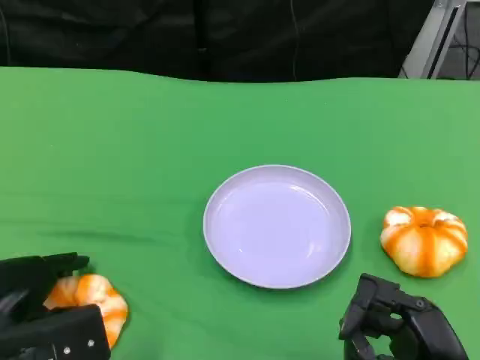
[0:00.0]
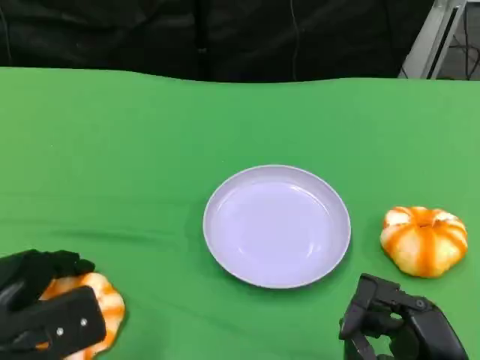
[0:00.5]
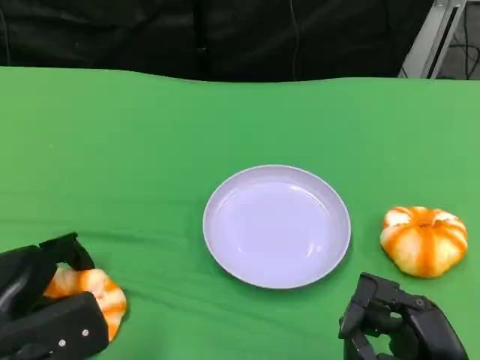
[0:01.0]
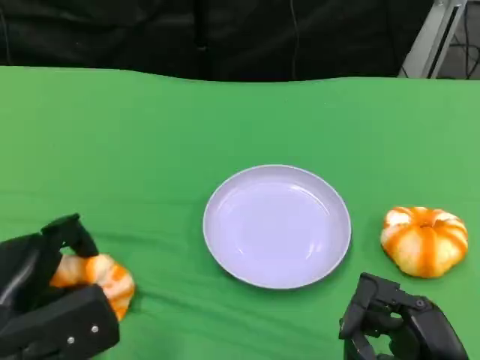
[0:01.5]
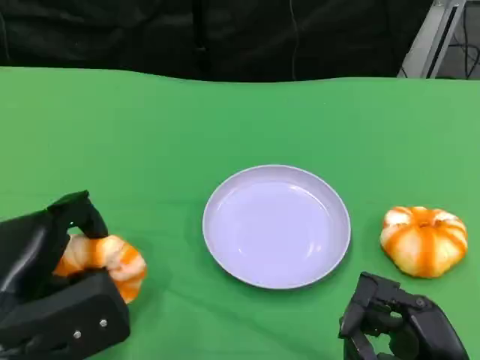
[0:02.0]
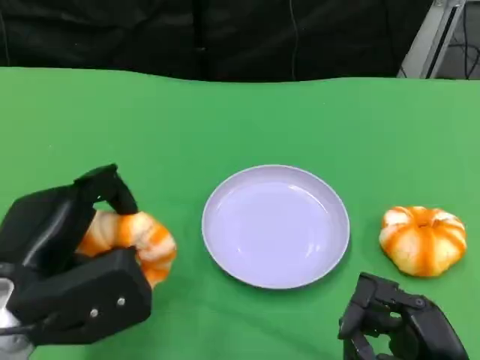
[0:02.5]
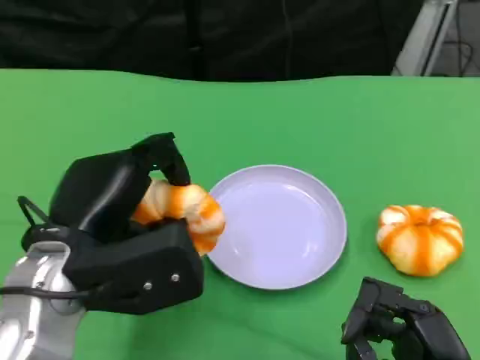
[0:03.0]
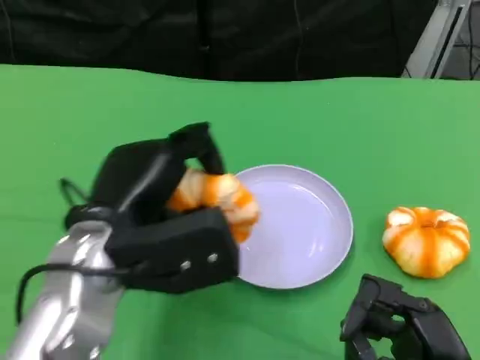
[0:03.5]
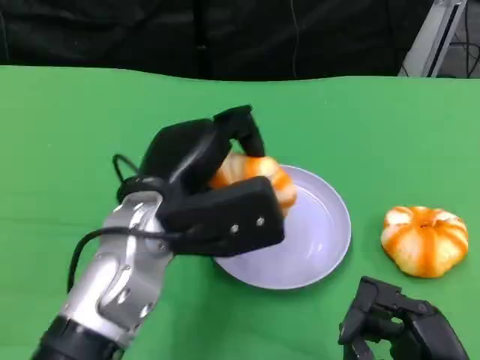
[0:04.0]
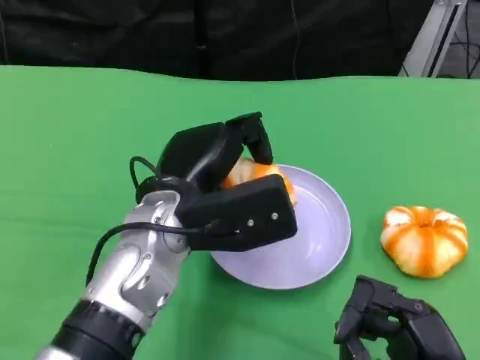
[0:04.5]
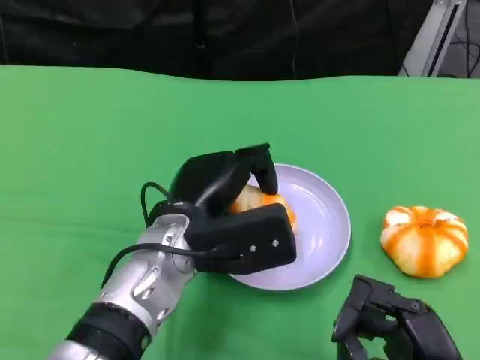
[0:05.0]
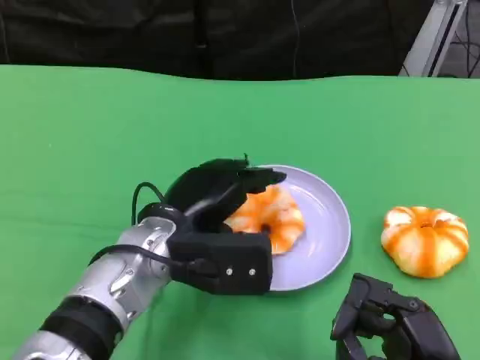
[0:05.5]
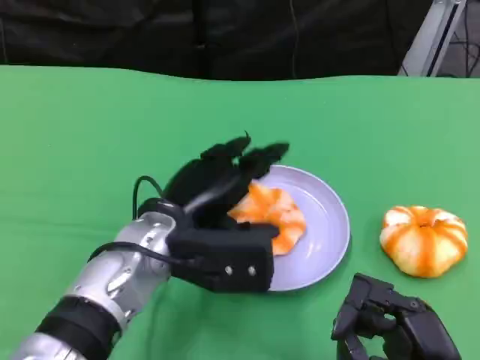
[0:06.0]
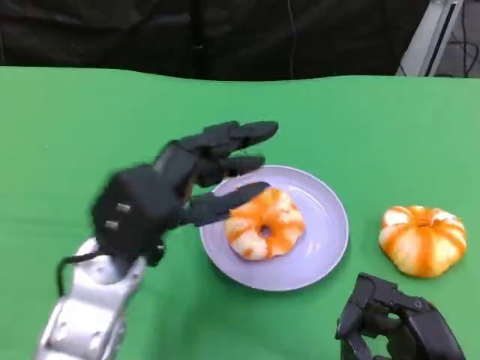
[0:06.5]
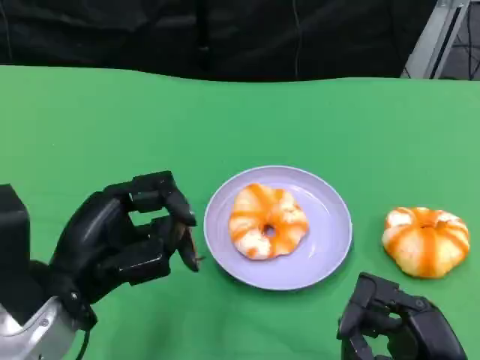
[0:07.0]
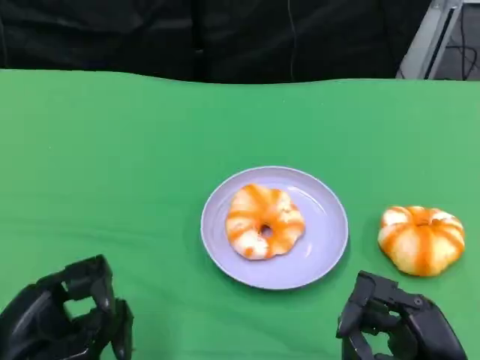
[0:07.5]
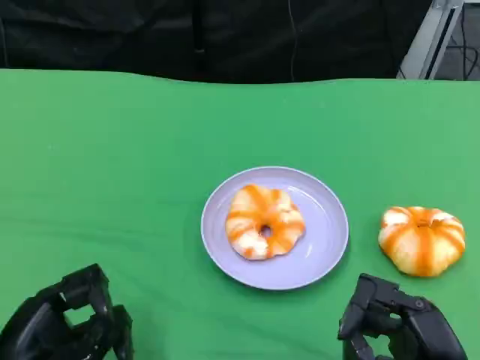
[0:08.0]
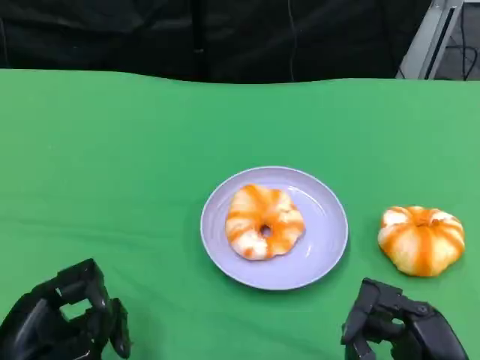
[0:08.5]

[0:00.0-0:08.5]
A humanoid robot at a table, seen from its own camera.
Task of the whole recording: Grasp the bread from the table and place it into the plate.
0:00.0 to 0:02.0: The left hand goes approximately 5 cm upward.
0:02.0 to 0:04.0: The left hand goes some 15 cm to the right and forward.
0:04.0 to 0:06.5: The left hand changes place by roughly 5 cm.
0:06.5 to 0:08.5: The left hand moves to the left, backward and downward, roughly 20 cm.

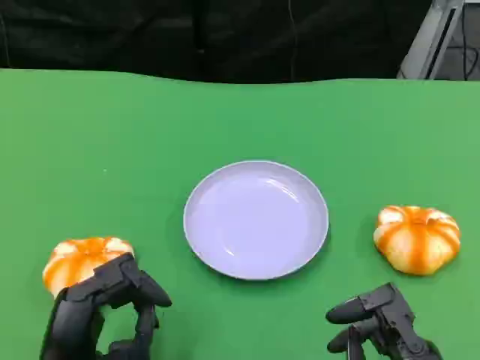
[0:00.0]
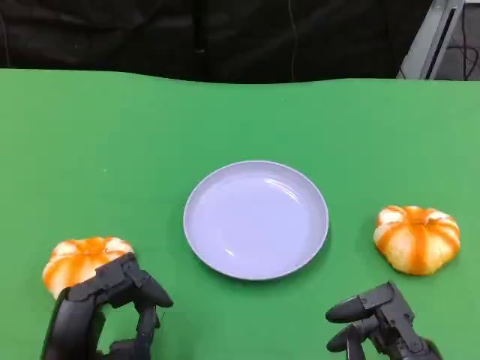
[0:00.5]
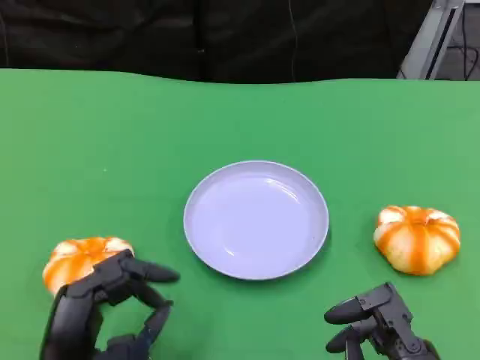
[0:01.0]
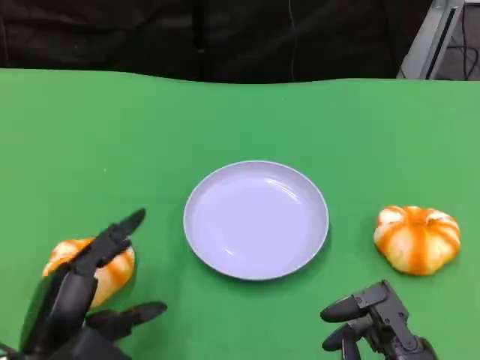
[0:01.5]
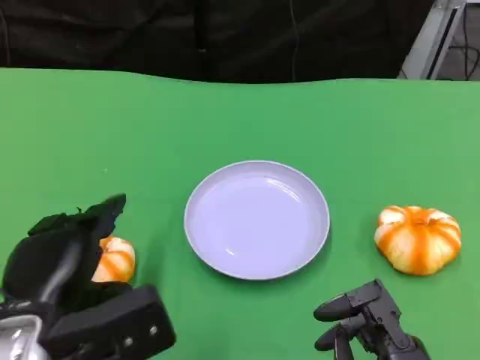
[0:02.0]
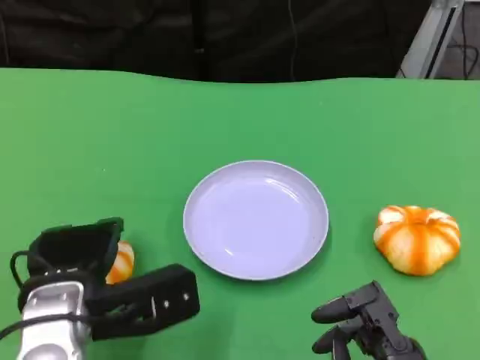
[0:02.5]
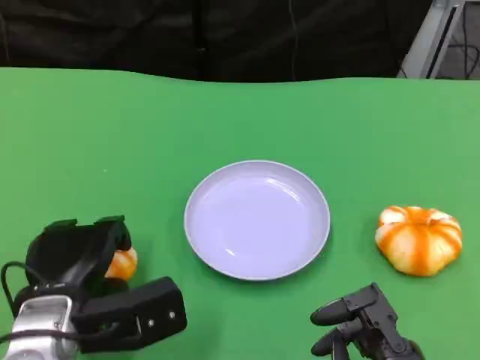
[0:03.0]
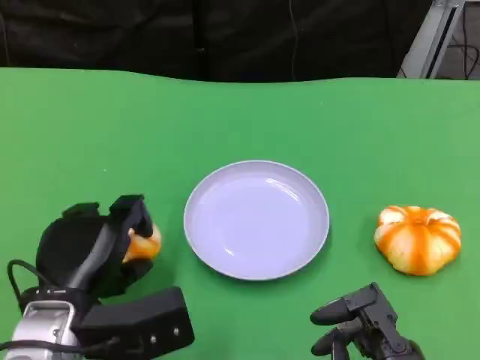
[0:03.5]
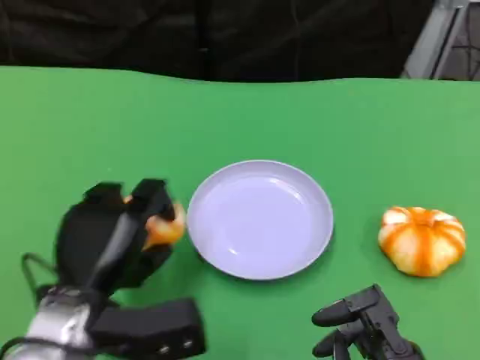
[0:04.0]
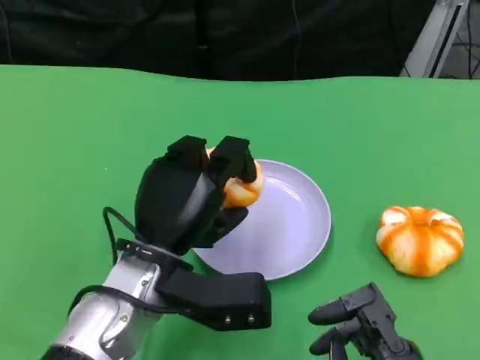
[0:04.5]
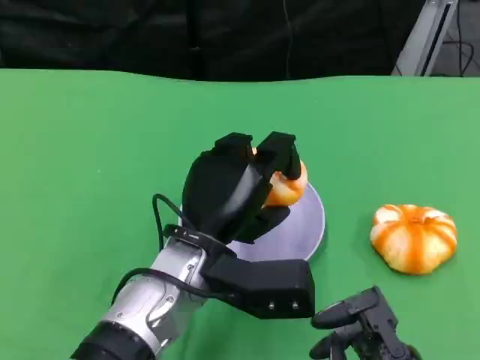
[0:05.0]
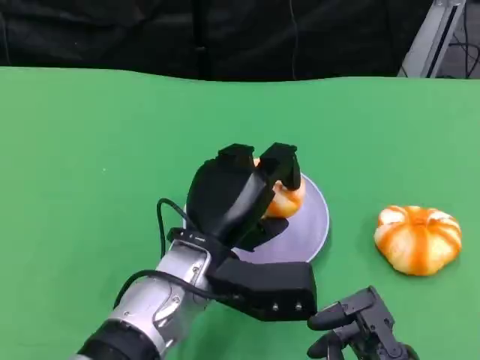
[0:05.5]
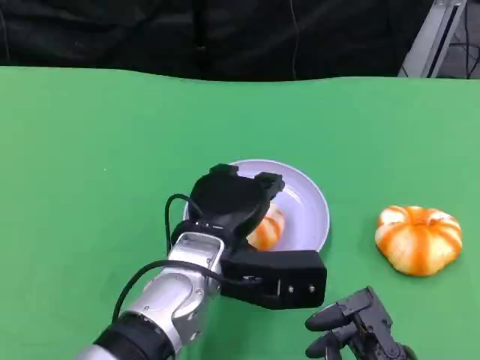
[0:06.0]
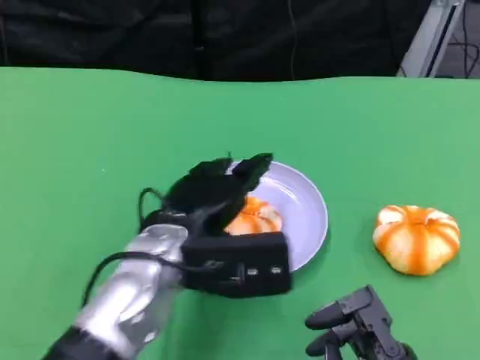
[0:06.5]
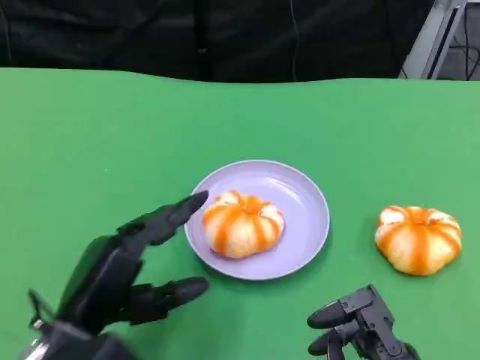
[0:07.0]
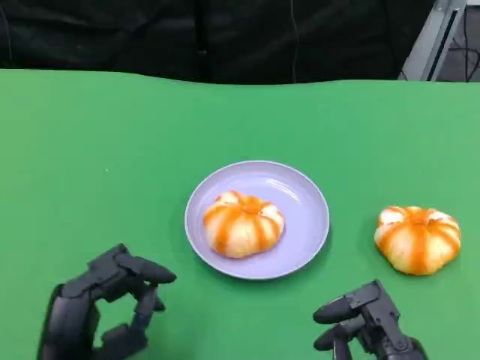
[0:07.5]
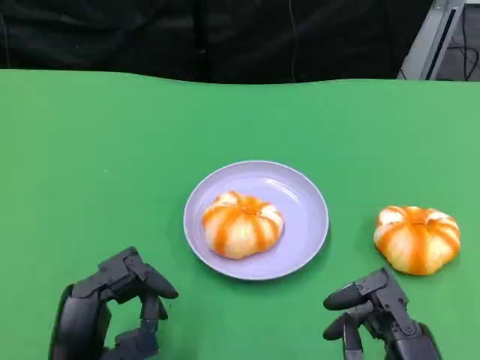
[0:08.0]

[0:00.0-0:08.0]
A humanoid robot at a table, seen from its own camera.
Task of the whole recording: Grasp the bread from the table and place it into the plate.
0:00.0 to 0:02.0: The left hand is displaced upward by some 5 cm.
0:02.0 to 0:04.0: The left hand ends up approximately 5 cm from where it was.
0:04.0 to 0:06.0: The left hand is displaced to the right by roughly 10 cm.
0:06.0 to 0:08.0: The left hand heads to the left and backward, covering roughly 20 cm.

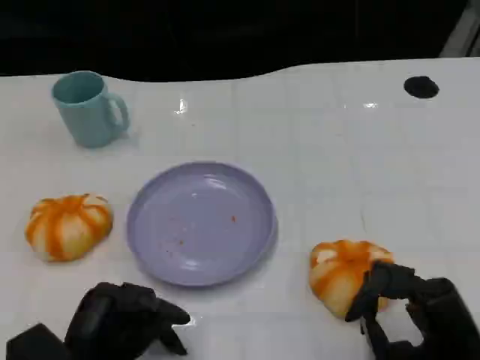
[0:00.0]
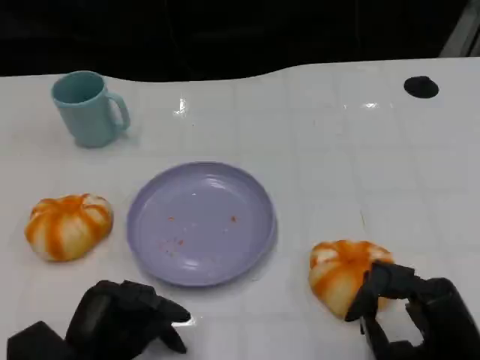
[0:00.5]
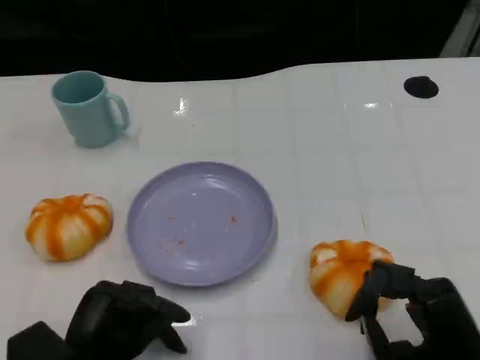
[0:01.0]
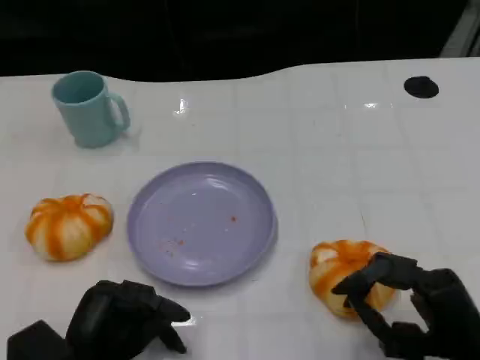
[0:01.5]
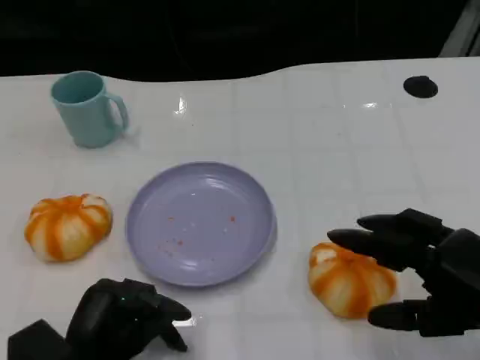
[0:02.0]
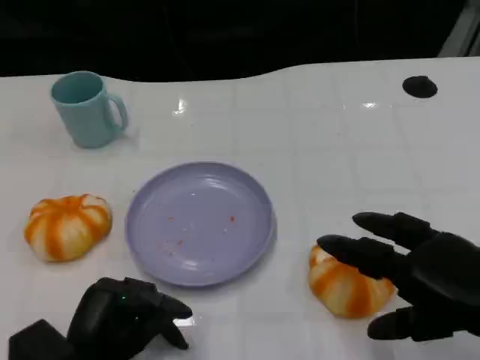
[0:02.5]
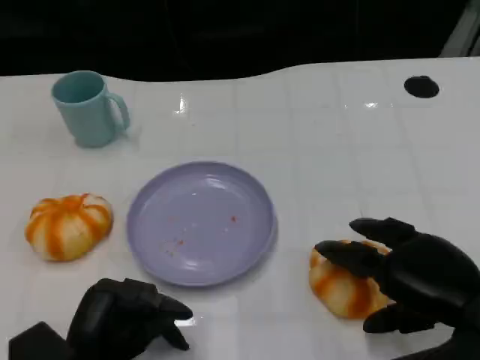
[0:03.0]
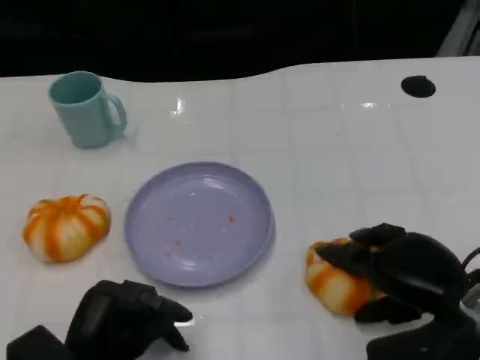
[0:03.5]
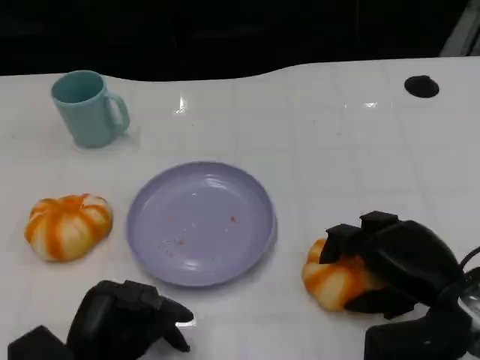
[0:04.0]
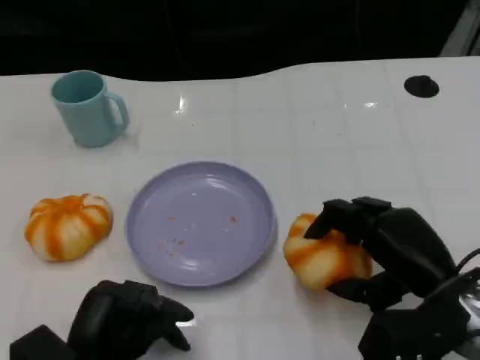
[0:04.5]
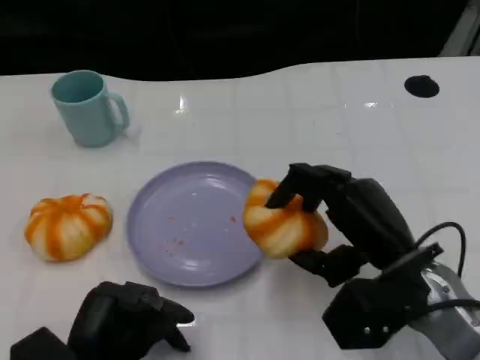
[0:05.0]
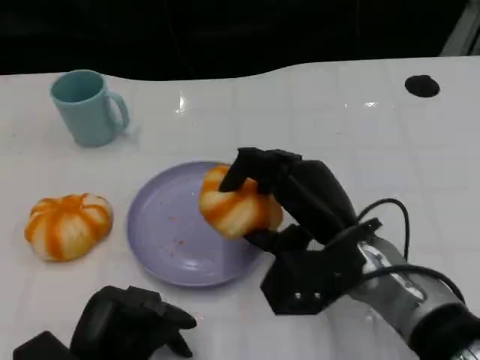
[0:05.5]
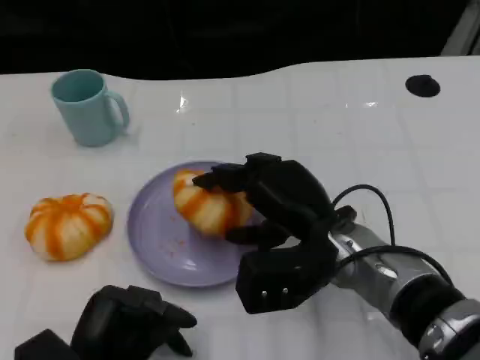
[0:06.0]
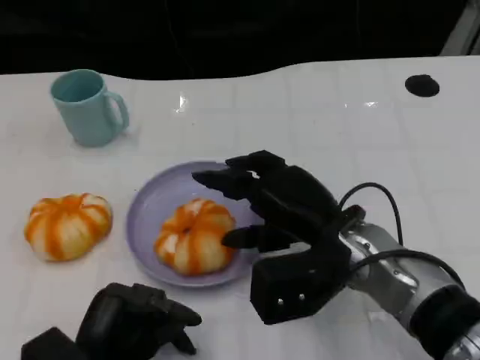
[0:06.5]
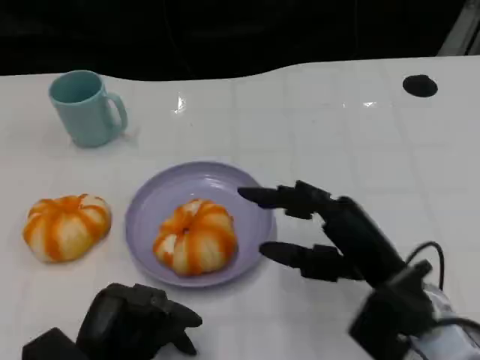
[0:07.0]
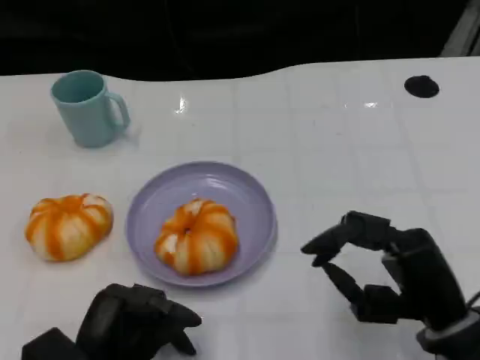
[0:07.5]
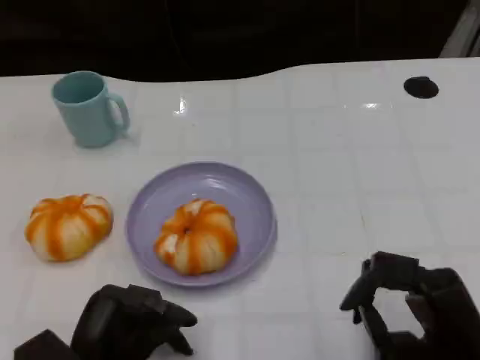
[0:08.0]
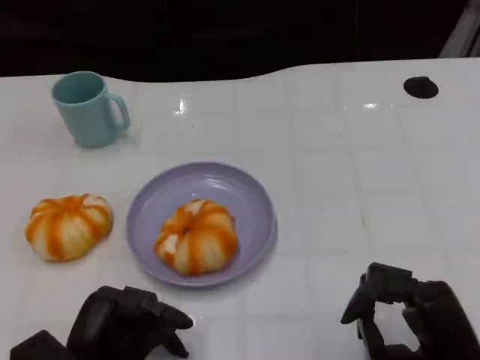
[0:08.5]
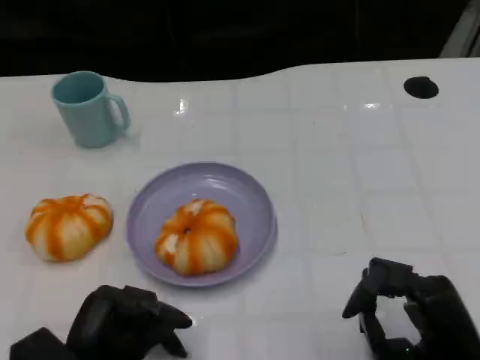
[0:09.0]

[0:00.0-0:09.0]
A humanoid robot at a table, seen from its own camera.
Task of the whole recording: Grasp the bread from the table and place it into the plate.
0:00.0 to 0:02.0: The right hand is displaced upward by about 10 cm.
0:02.0 to 0:04.5: The right hand goes some 10 cm to the left and forward.
0:07.0 to 0:09.0: The right hand shifts roughly 10 cm backward and to the right.
